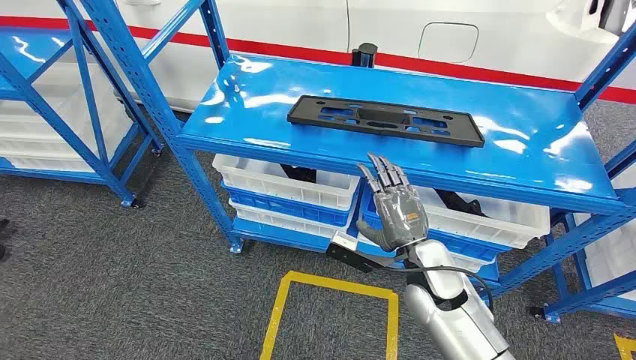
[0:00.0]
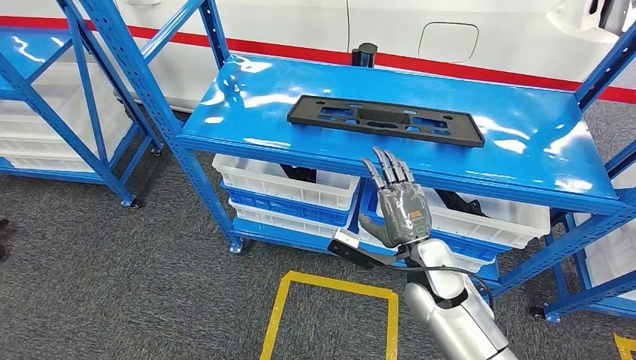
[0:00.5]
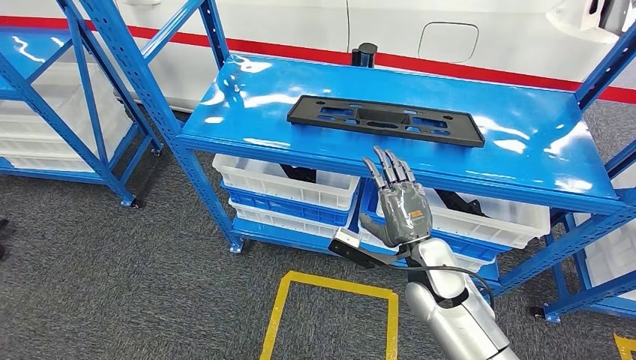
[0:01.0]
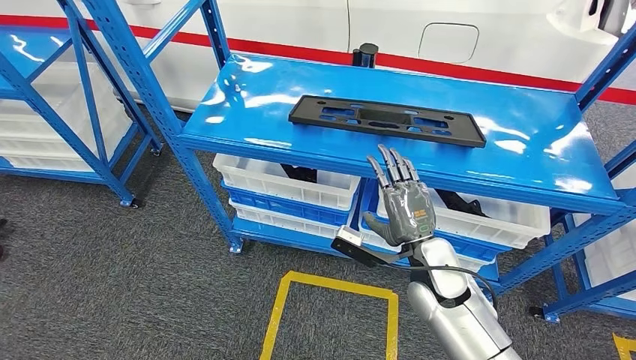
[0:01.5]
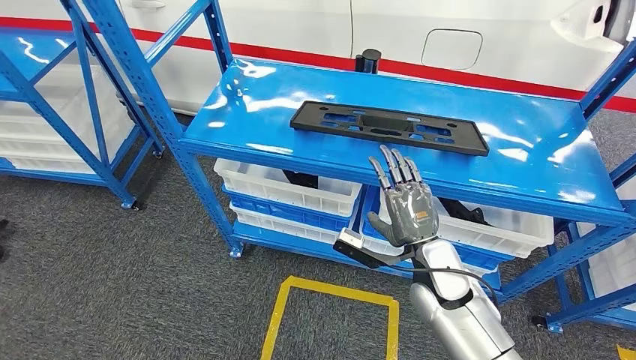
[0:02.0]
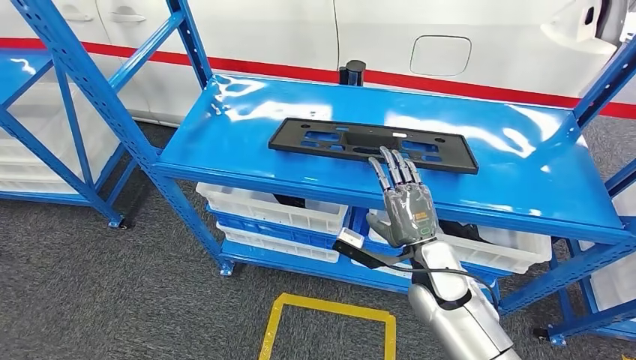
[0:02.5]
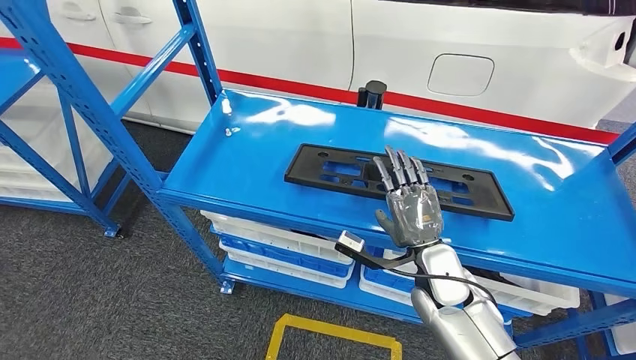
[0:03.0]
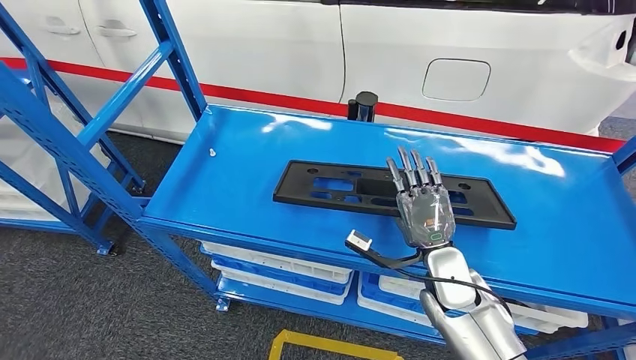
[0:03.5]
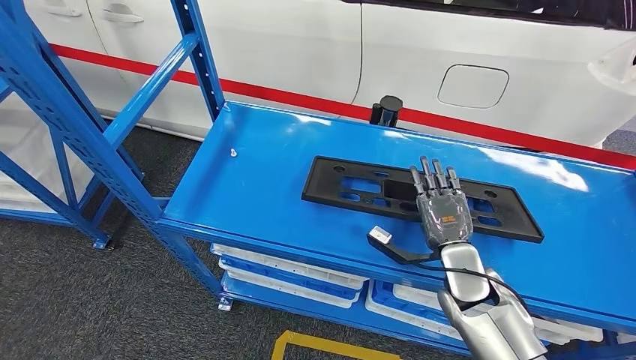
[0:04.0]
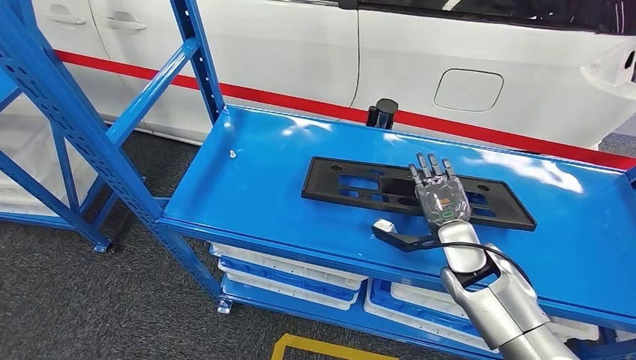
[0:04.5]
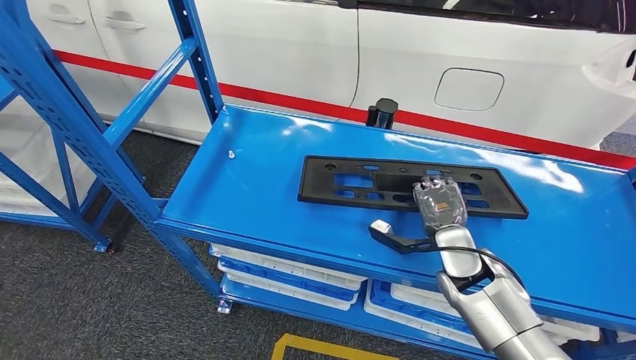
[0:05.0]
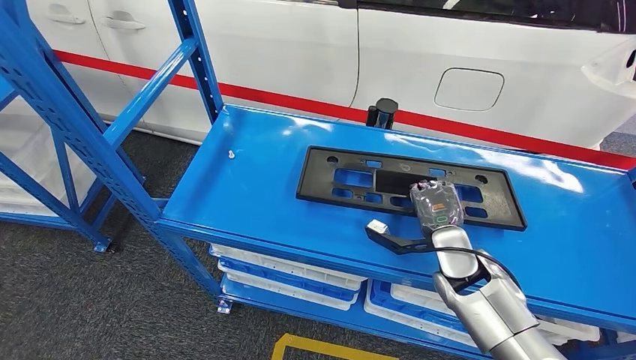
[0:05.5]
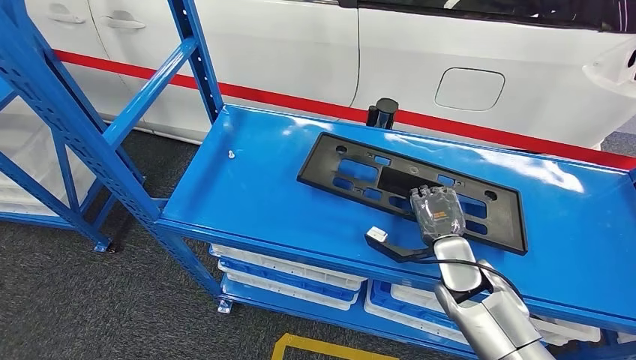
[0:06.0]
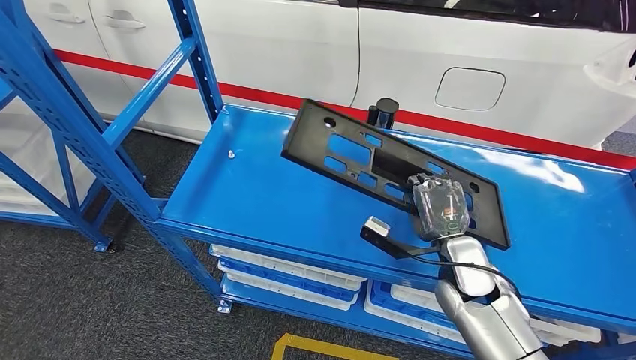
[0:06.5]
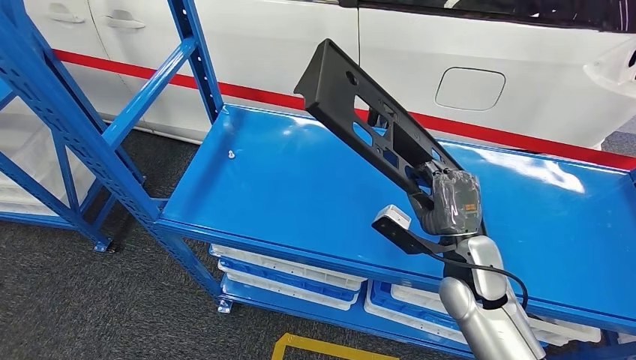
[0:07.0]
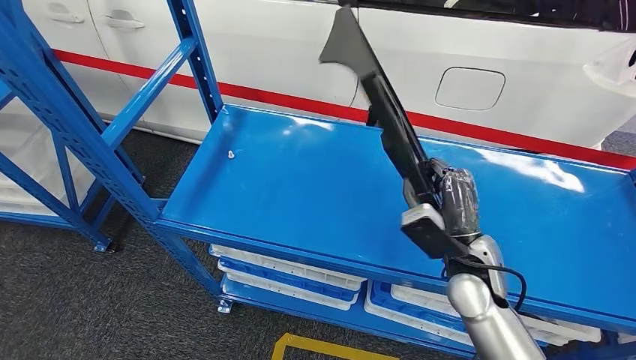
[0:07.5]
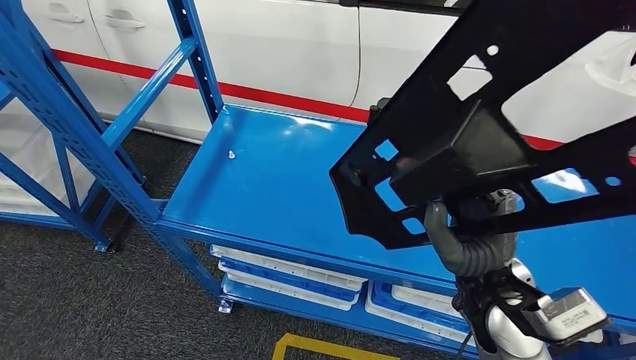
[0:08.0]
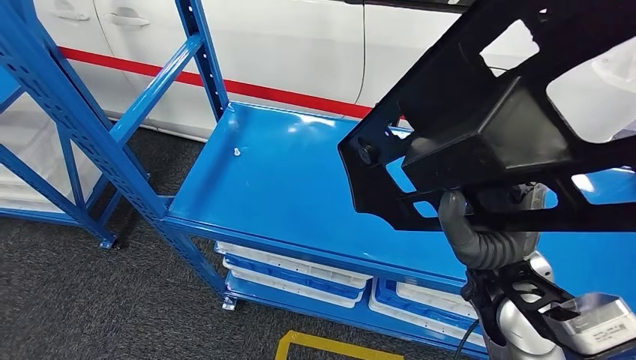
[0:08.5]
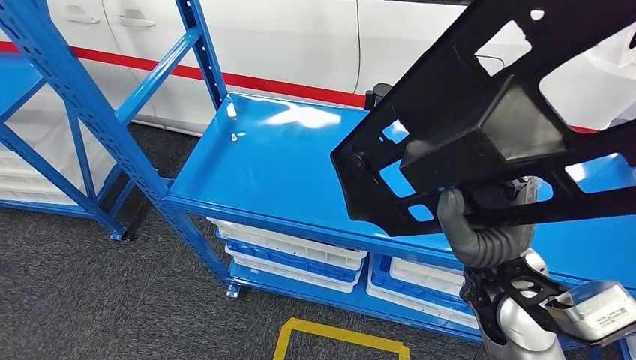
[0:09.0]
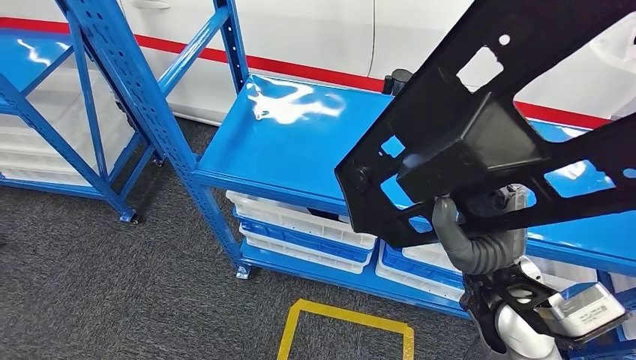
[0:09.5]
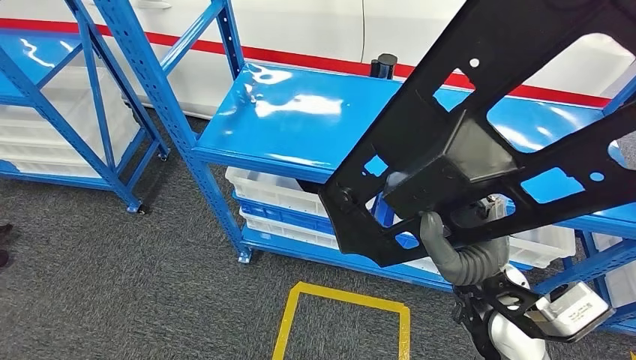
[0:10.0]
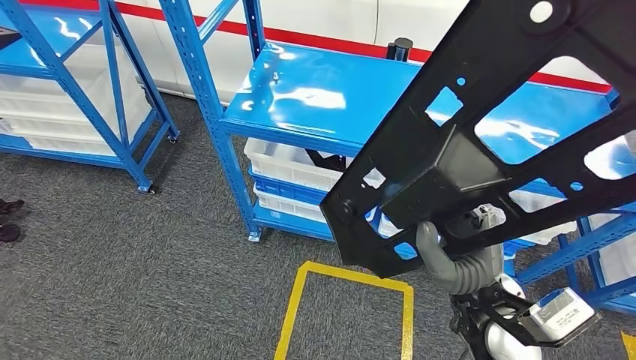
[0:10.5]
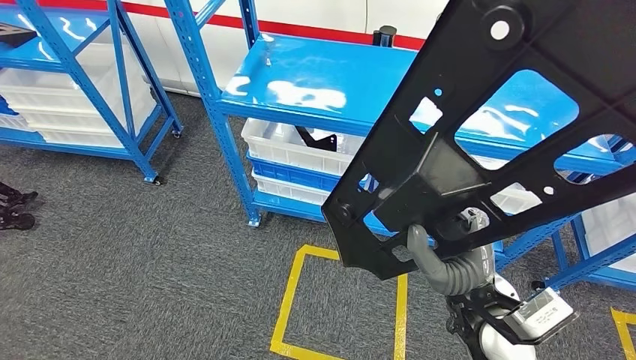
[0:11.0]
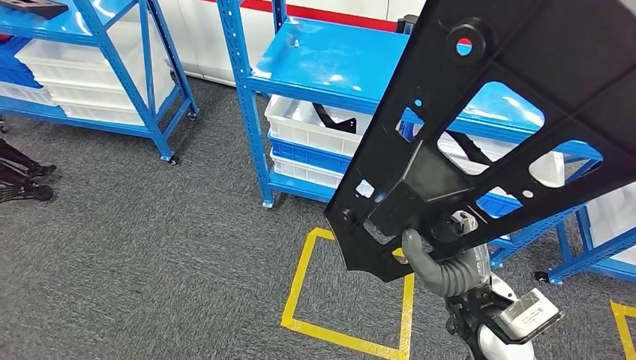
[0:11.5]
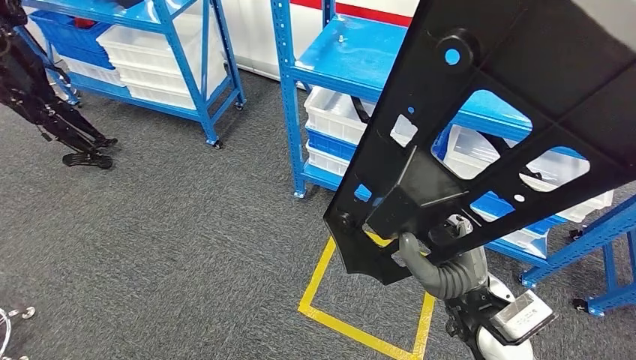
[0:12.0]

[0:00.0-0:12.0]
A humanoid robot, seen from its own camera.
Step, 0:00.0 to 0:10.5: Pick up the large material from the shelf.
0:04.0 to 0:06.0: There are only small adjustments of the hands.

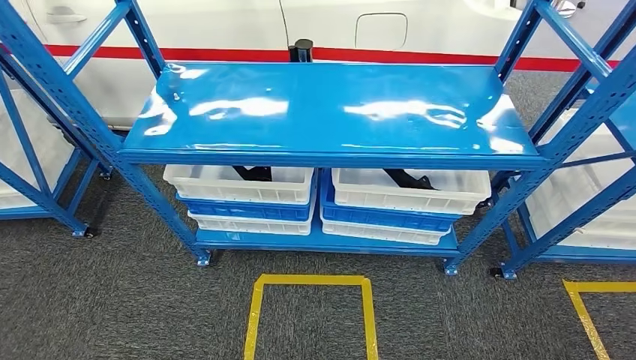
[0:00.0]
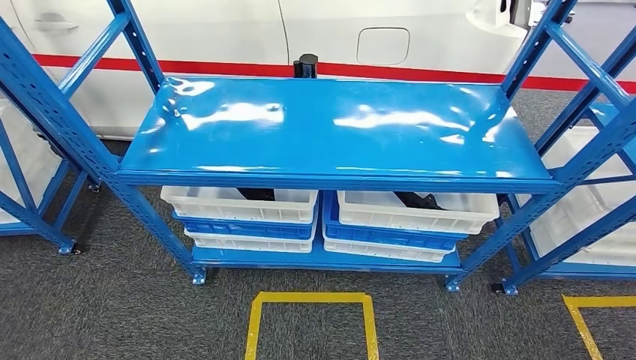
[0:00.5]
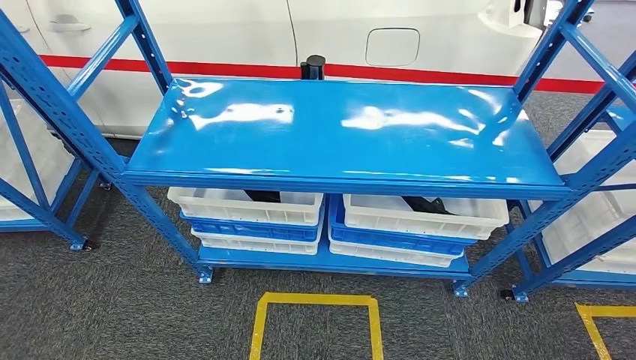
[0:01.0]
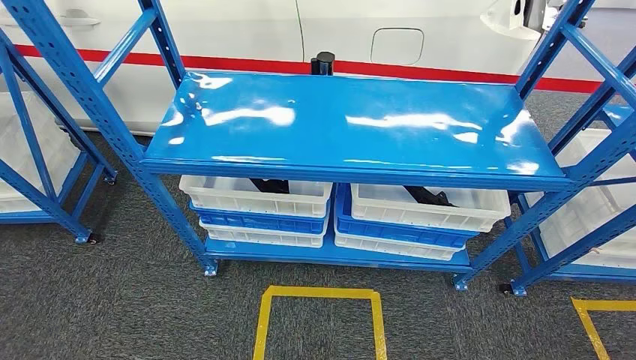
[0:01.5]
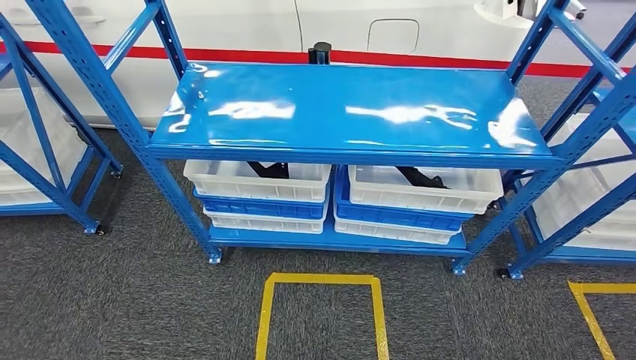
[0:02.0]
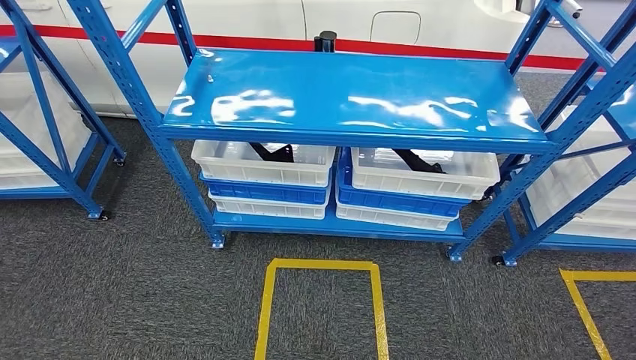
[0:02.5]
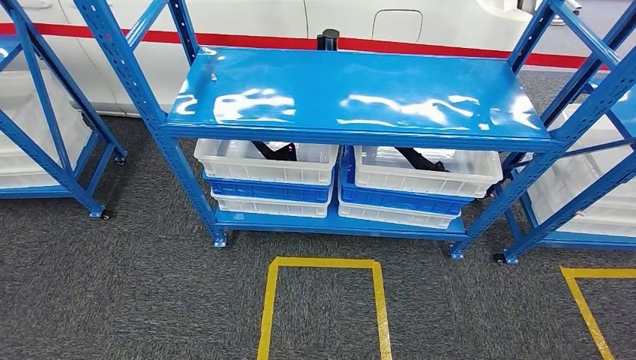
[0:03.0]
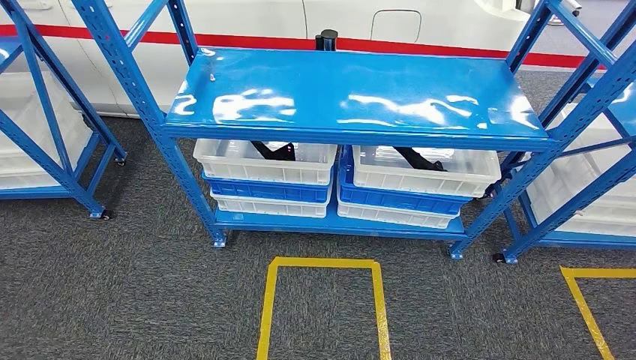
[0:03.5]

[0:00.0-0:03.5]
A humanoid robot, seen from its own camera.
Step, 0:00.0 to 0:03.5: Move to the initial position of the shelf.

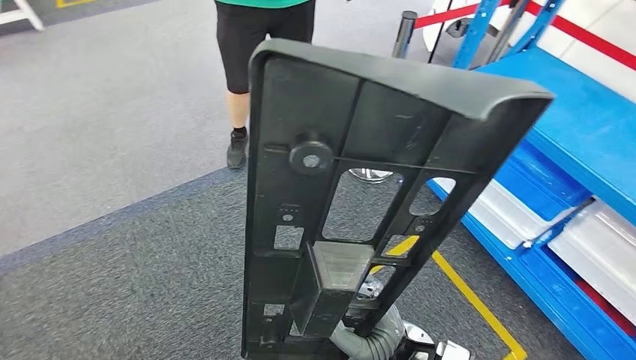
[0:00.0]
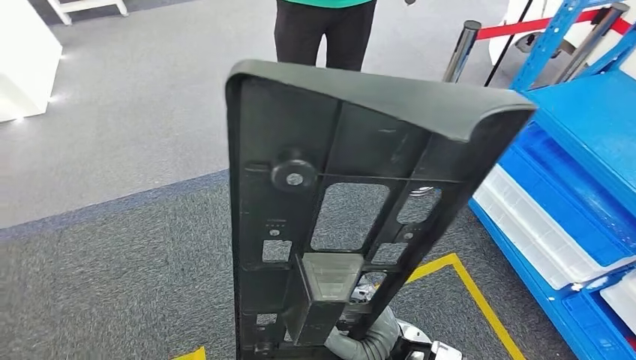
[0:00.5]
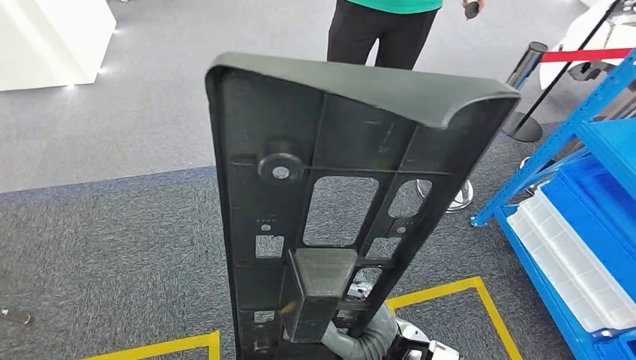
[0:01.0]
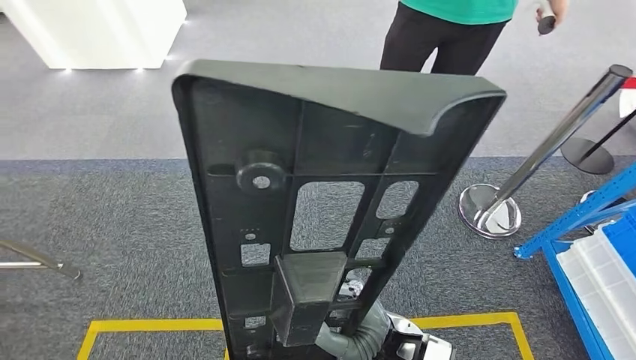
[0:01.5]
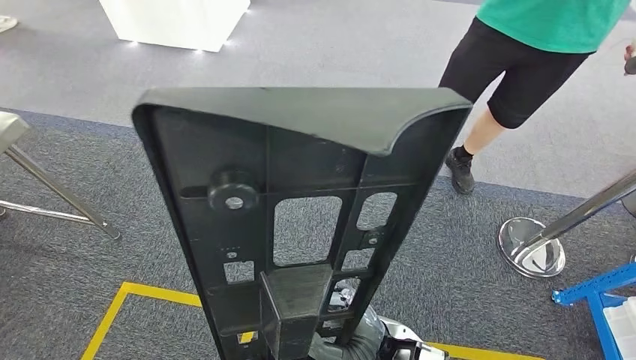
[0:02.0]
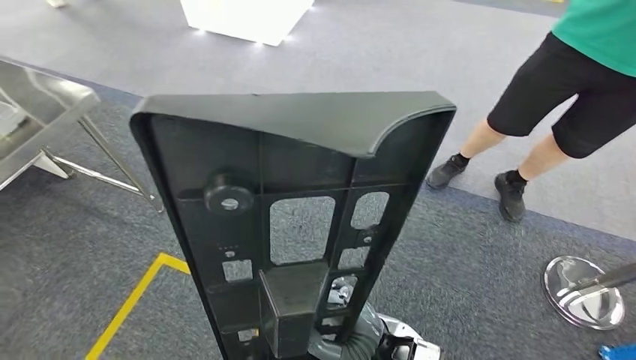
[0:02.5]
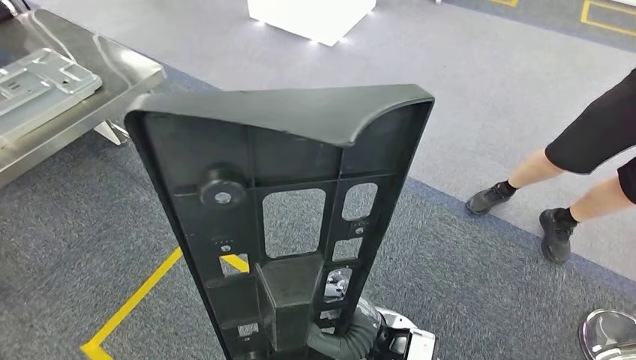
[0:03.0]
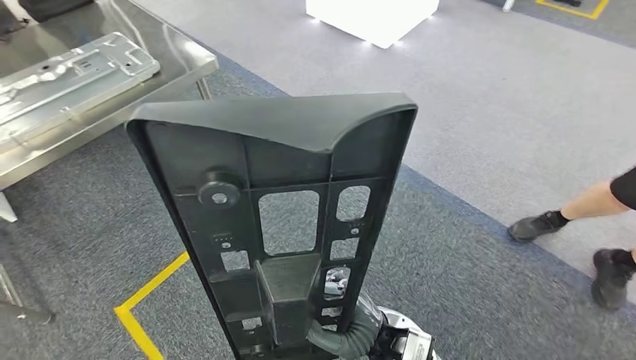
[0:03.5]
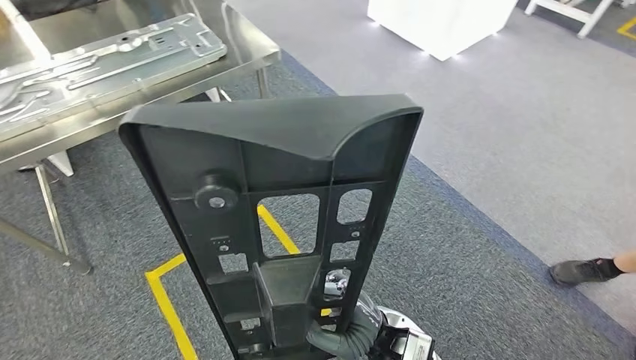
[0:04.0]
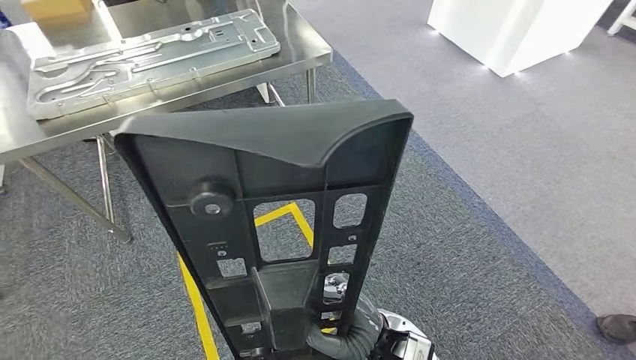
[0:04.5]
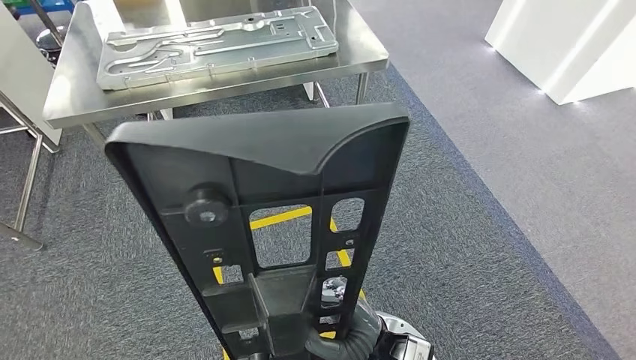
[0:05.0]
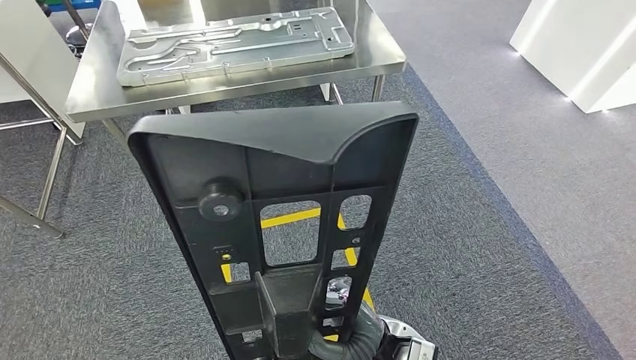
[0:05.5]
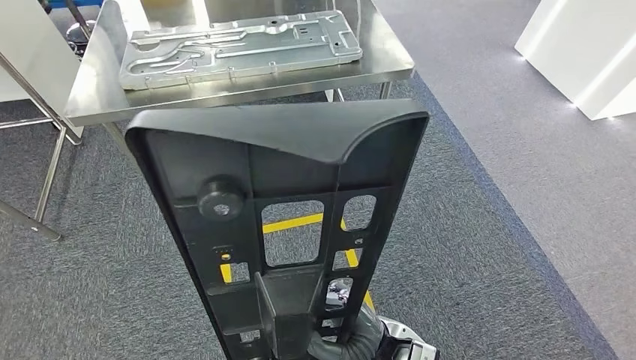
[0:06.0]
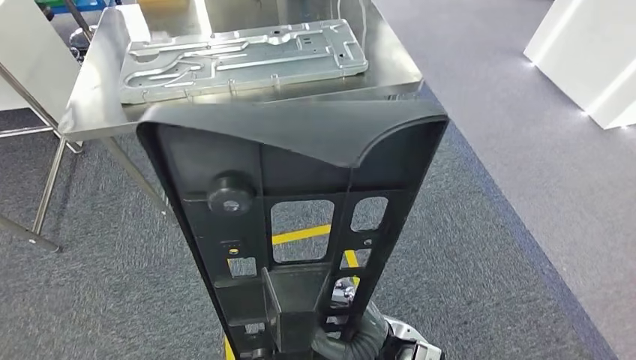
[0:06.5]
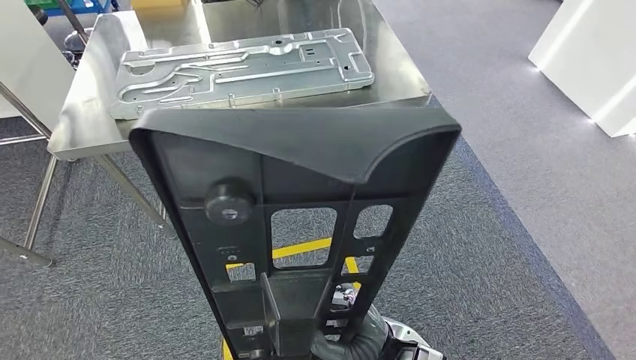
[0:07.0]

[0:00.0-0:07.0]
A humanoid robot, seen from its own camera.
Step, 0:00.0 to 0:06.5: Move the large material to the workbench.
